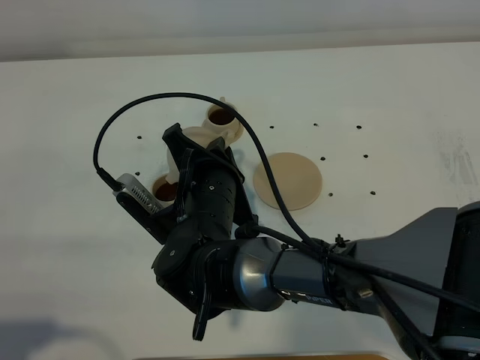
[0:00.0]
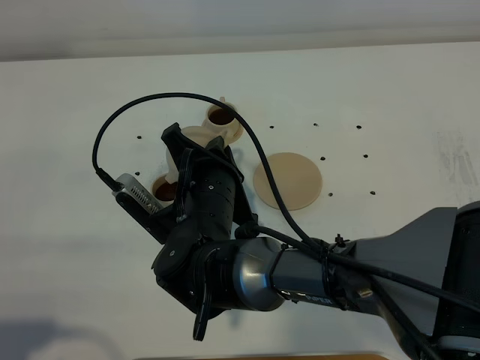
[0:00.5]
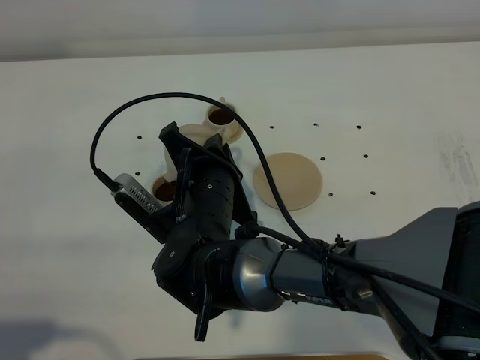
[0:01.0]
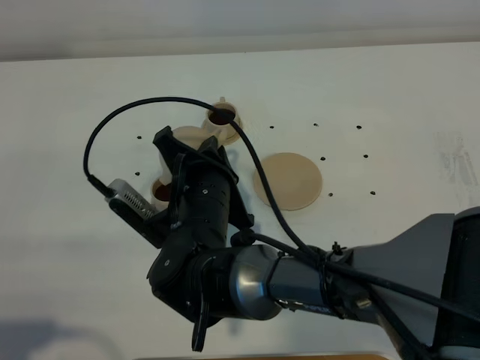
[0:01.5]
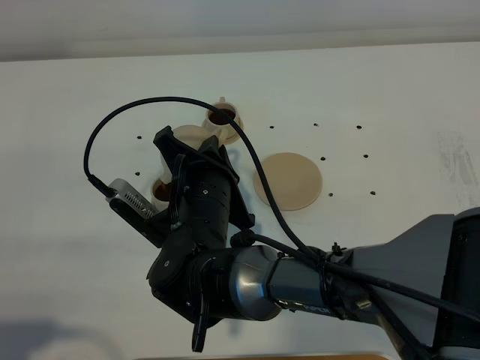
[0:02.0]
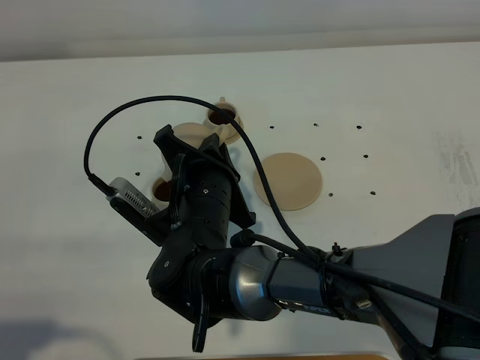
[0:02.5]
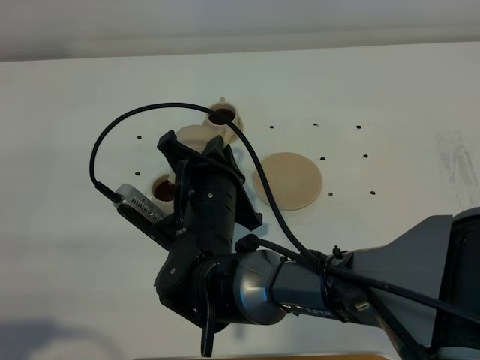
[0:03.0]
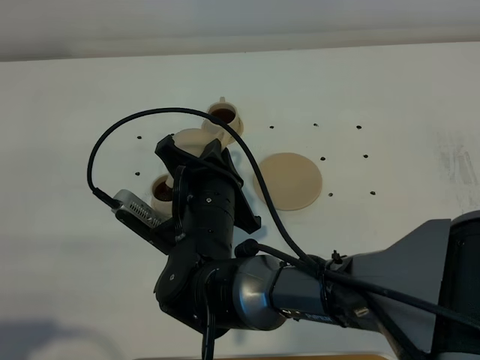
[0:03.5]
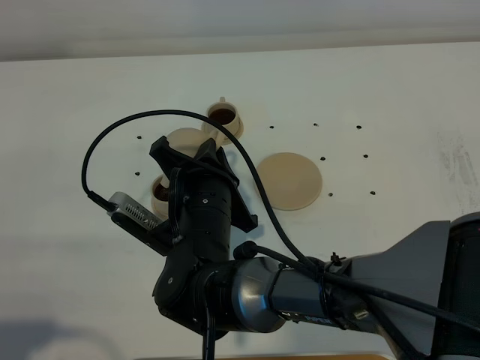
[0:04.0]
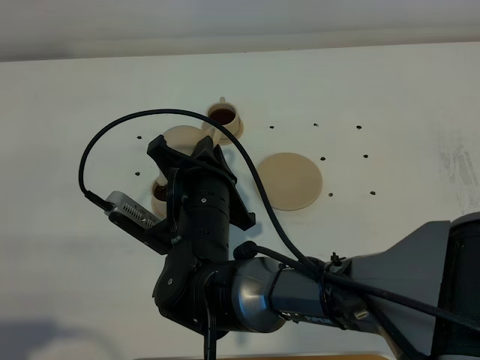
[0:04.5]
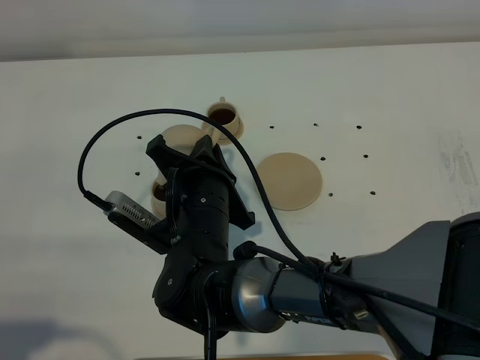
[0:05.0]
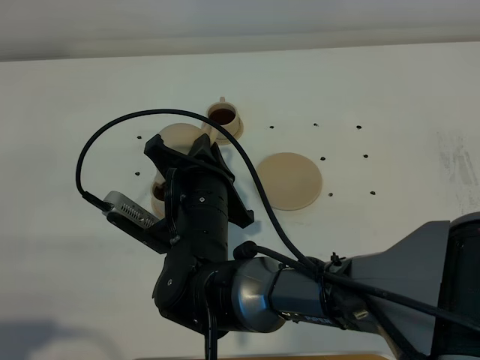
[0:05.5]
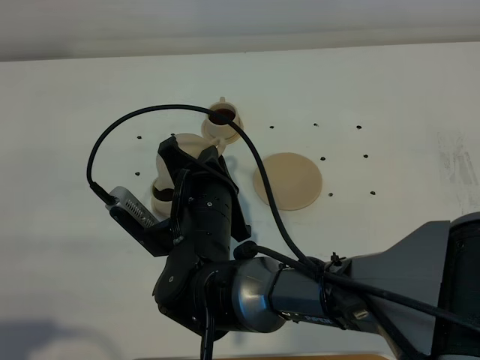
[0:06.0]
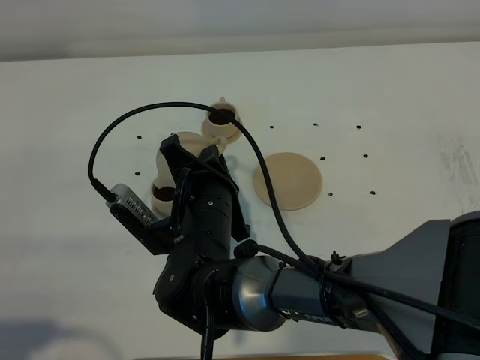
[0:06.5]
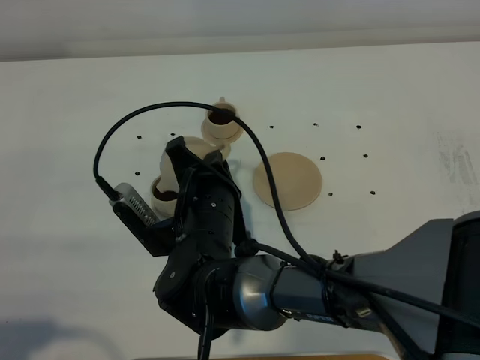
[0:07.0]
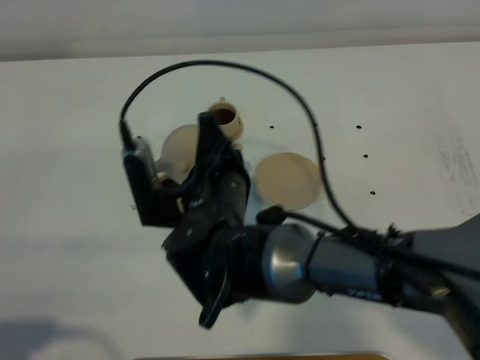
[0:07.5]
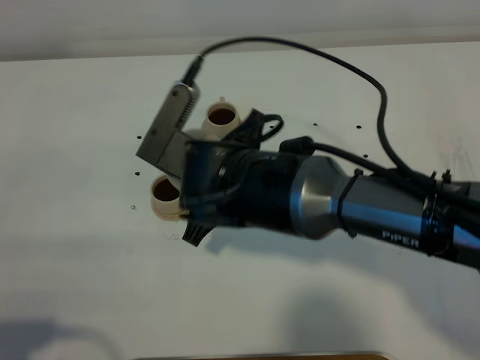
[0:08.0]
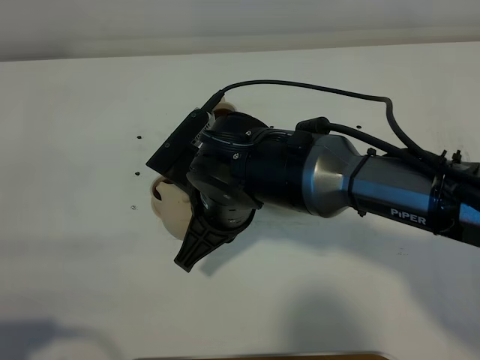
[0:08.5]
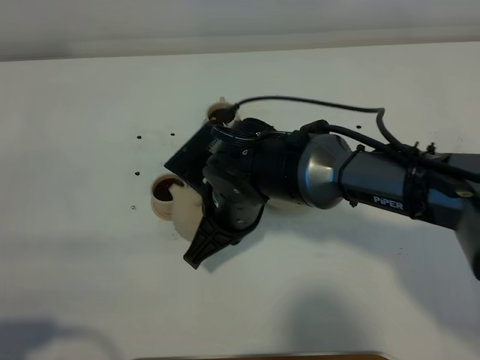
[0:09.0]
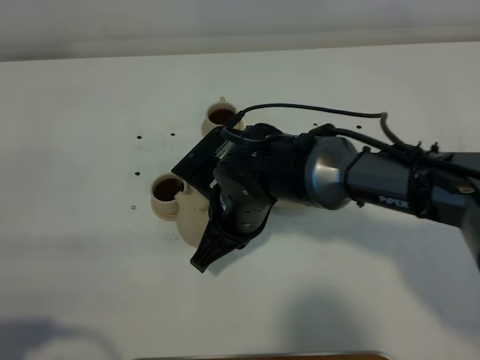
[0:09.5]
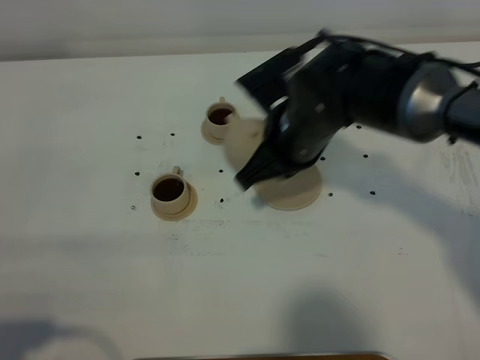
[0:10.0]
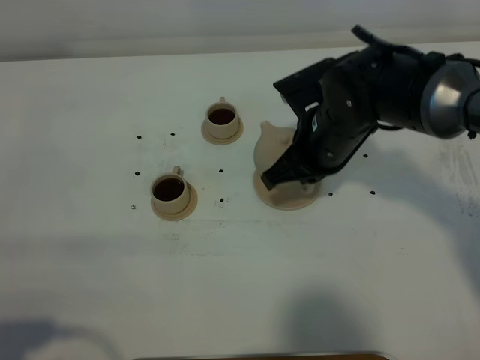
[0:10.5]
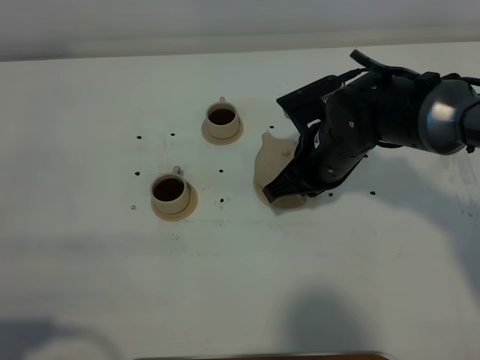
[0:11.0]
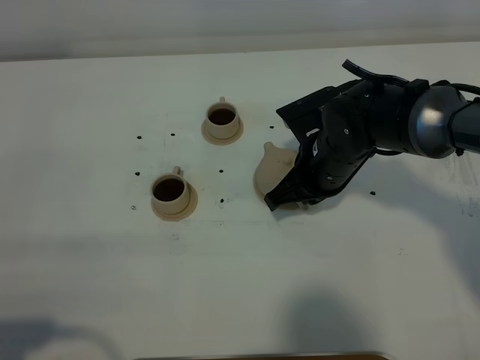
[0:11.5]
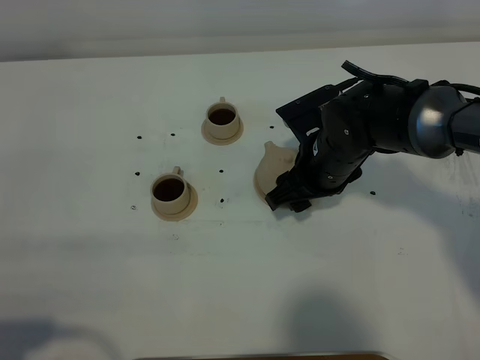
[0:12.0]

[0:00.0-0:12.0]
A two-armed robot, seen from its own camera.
Task of the whole recording: grasp the brown teapot and pour the tea into the two brown teacups one by one, put the brown teapot back in its original place.
Step, 0:00.0 to 0:07.5: Pour tea into the teacup with the right gripper.
0:00.0 to 0:02.0: Both grippers stay put.
0:02.0 to 0:06.0: The grippers move only a little.
0:06.0 to 0:08.0: The right gripper heads upward, covering approximately 5 cm.
0:08.0 to 0:10.0: The right gripper moves to the right and forward, some 10 cm.
0:10.0 to 0:12.0: The right gripper travels downward by roughly 5 cm, and opens.

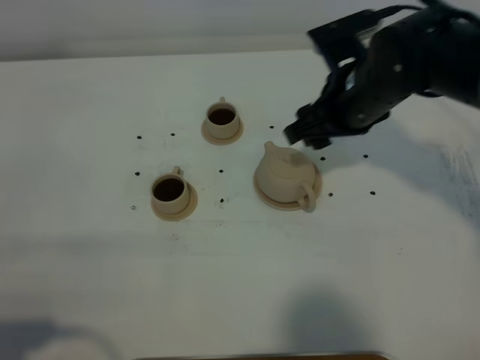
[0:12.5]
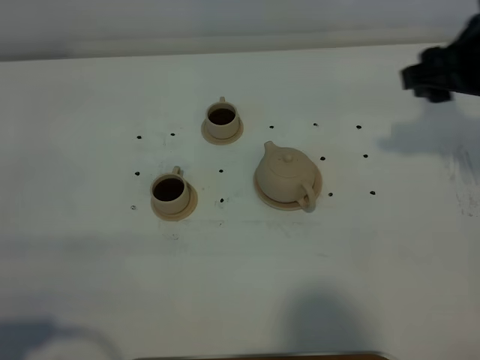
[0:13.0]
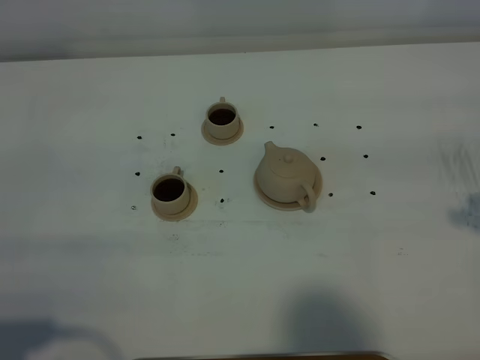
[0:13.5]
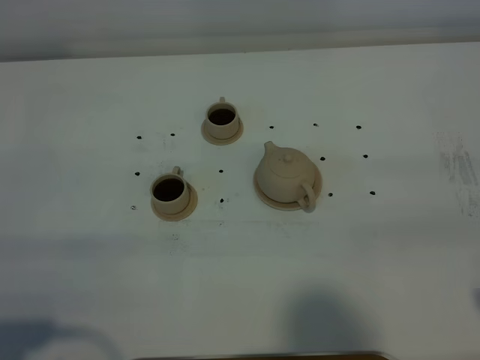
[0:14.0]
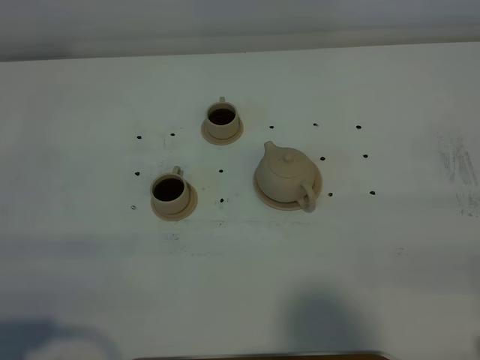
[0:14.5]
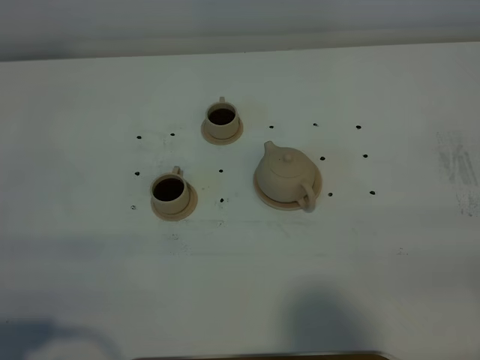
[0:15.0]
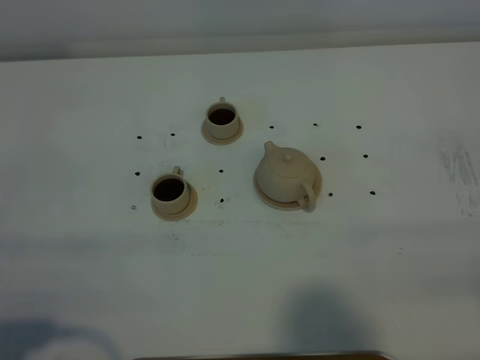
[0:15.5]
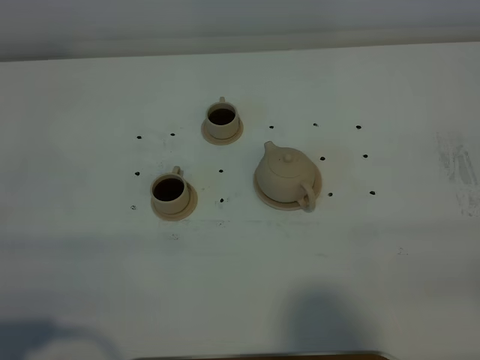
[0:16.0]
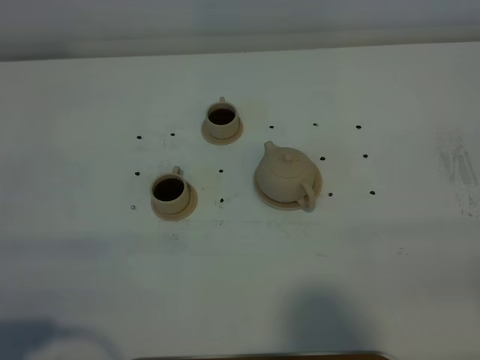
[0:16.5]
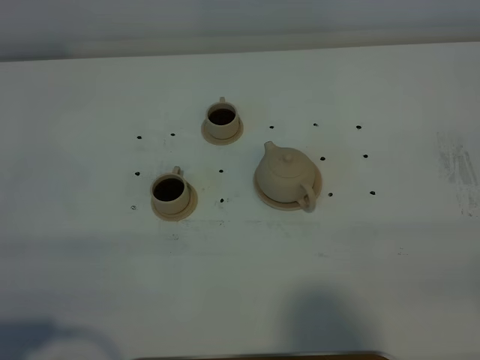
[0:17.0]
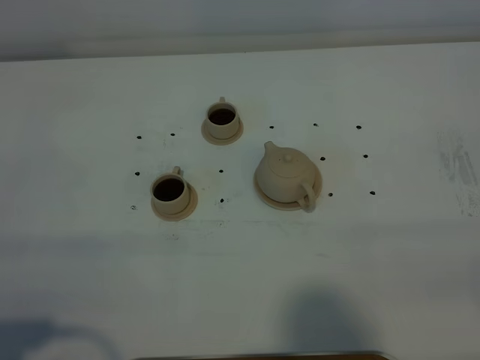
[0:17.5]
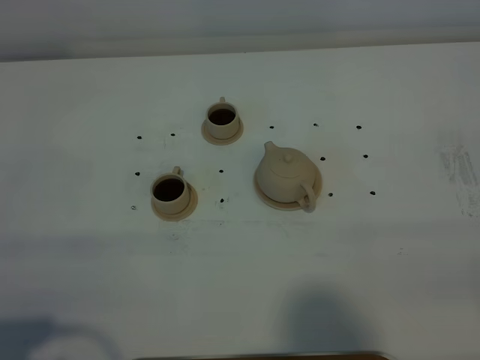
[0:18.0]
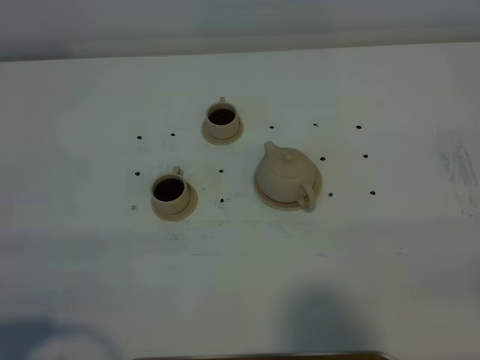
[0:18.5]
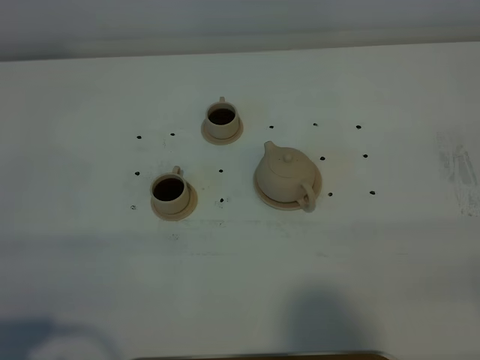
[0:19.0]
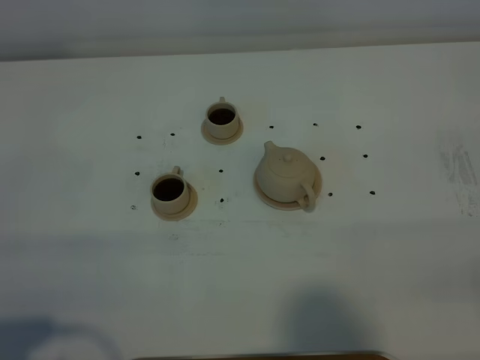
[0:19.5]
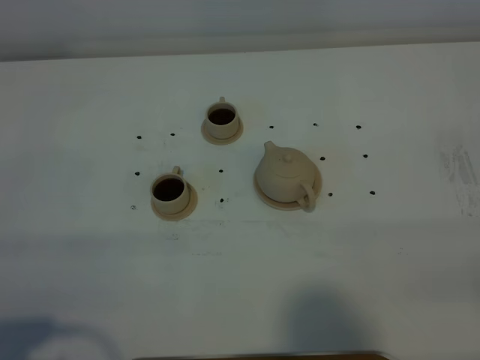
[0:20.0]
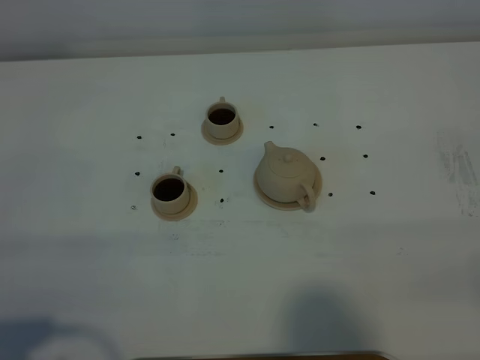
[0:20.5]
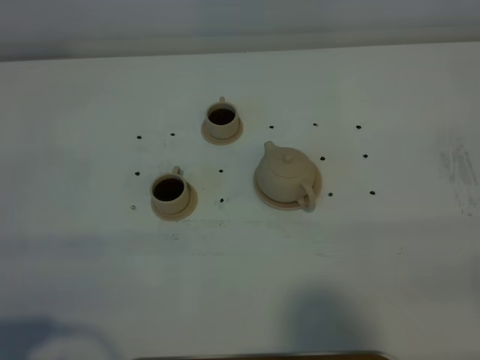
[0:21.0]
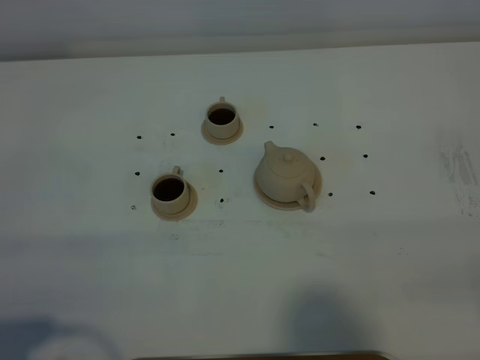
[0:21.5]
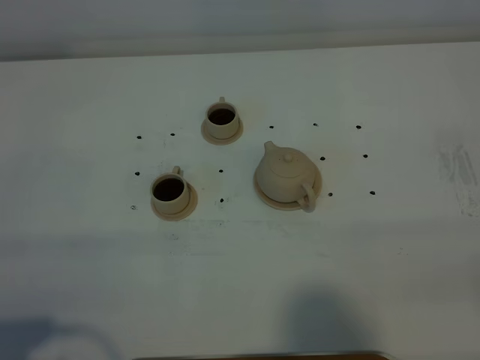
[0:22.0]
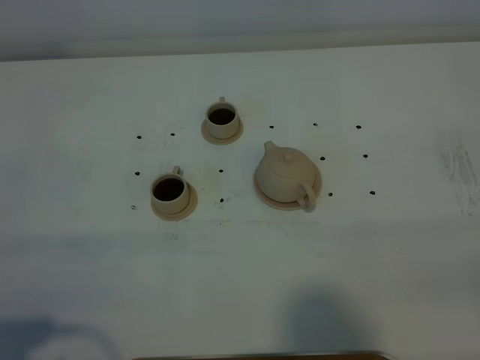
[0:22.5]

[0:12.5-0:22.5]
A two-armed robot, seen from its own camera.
Task of the whole recording: grasp the brown teapot and pour the tea into the two brown teacups one by one, put the brown teapot back in its original place.
0:12.5 to 0:14.5: The right gripper goes about 35 cm backward and to the right.
0:16.5 to 0:22.5: Both grippers stay about where they are.

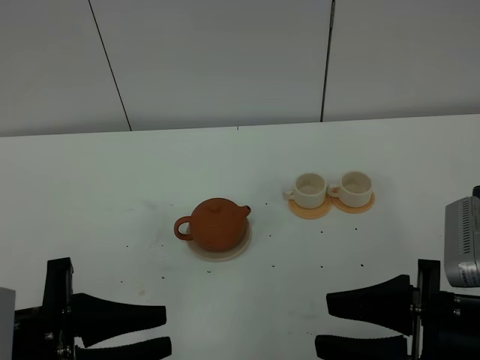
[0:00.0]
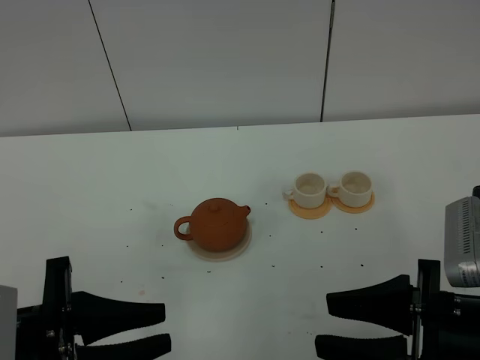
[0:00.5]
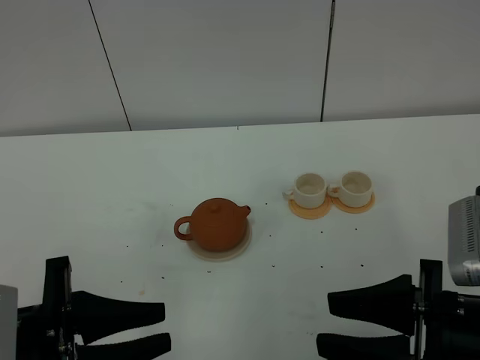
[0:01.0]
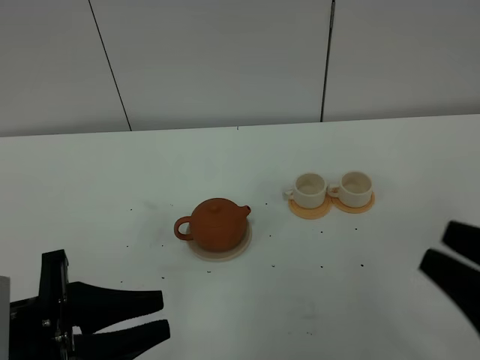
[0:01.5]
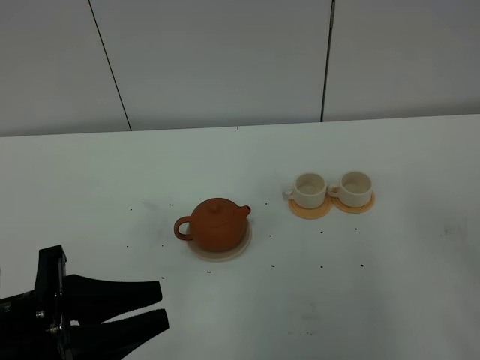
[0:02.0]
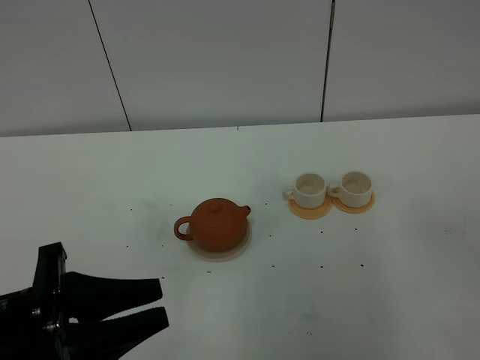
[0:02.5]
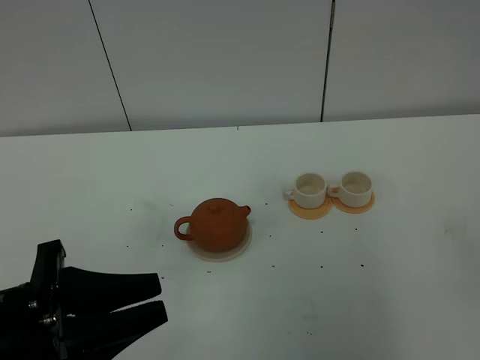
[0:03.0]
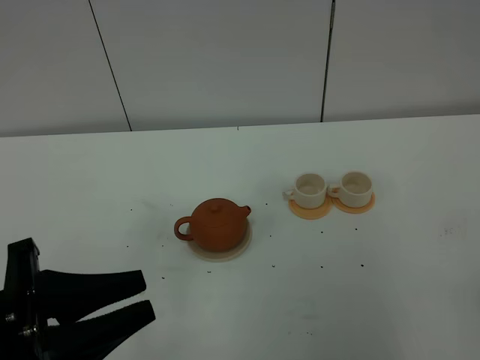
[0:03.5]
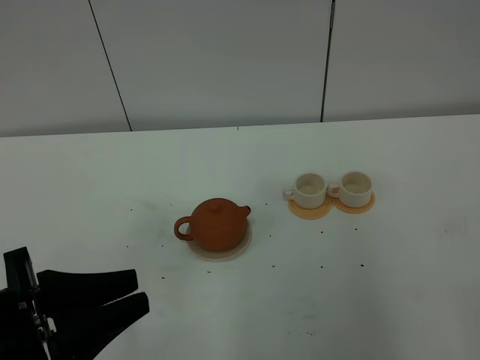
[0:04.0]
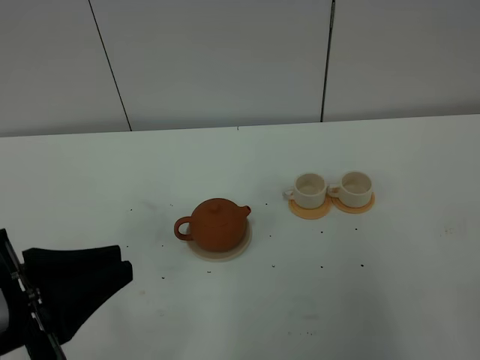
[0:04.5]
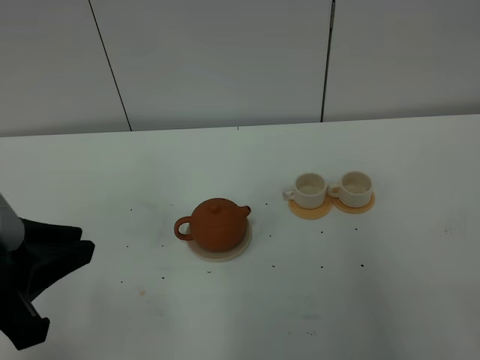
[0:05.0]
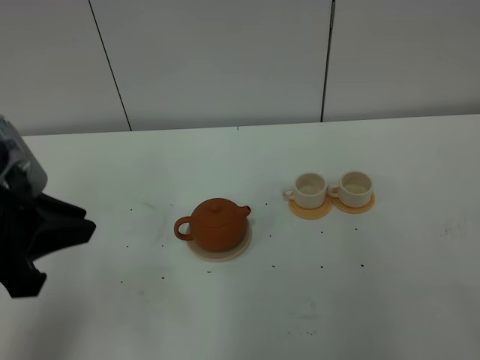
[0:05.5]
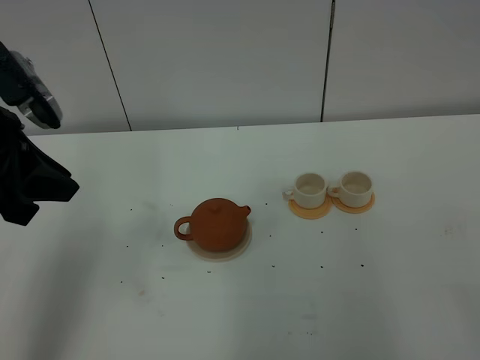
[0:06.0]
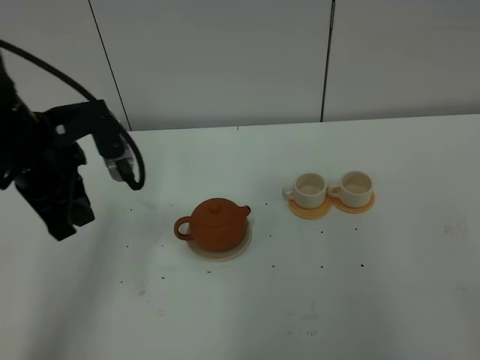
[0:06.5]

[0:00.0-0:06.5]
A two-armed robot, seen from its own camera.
Task of the whole recording: grasp the brown teapot and pour the tea into the two white teacups one by one, put the brown teapot back in its original place.
0:00.0 to 0:02.0: The right gripper goes roughly 15 cm to the right, upward and backward, and closes its fingers.
0:04.5 to 0:06.5: The left gripper shifts roughly 20 cm forward.
